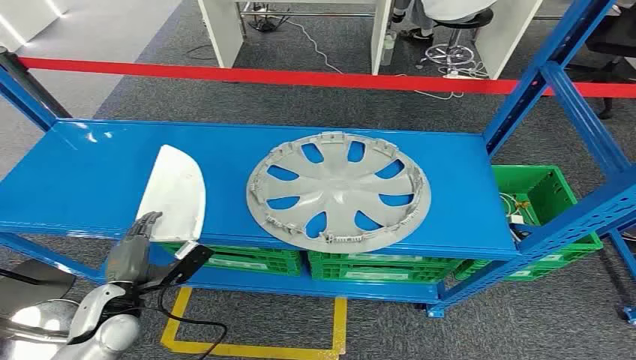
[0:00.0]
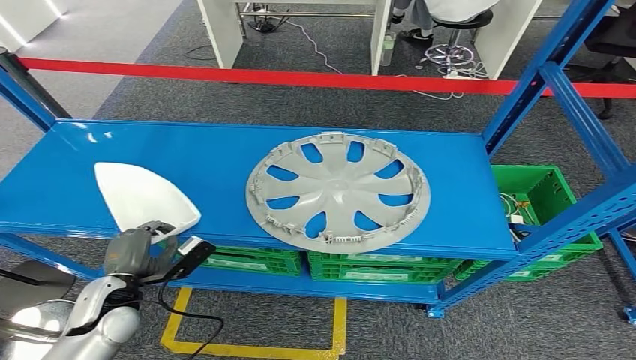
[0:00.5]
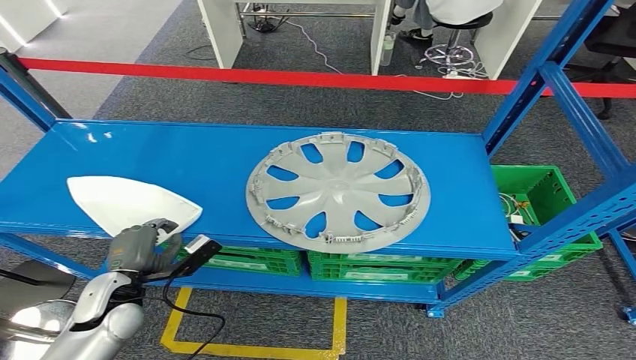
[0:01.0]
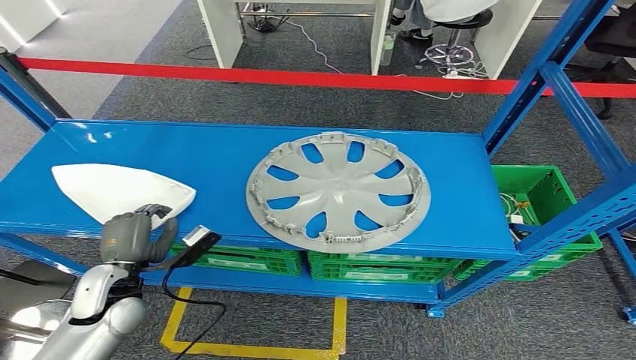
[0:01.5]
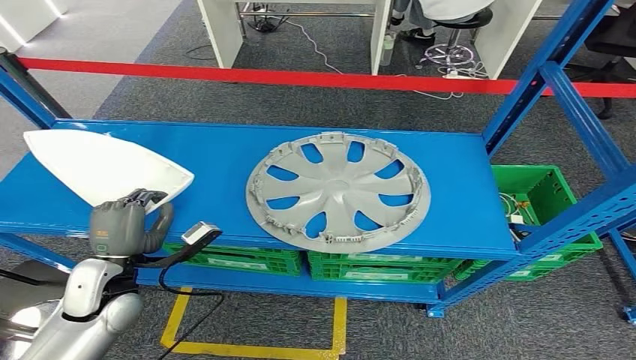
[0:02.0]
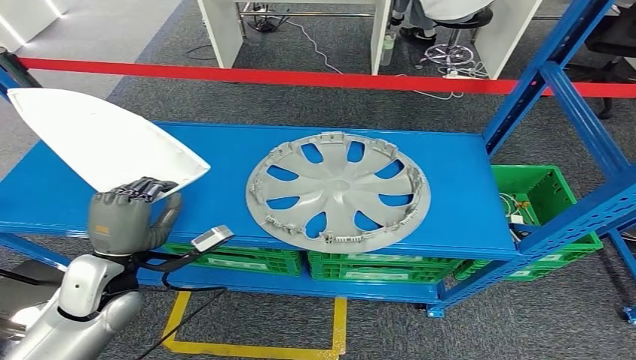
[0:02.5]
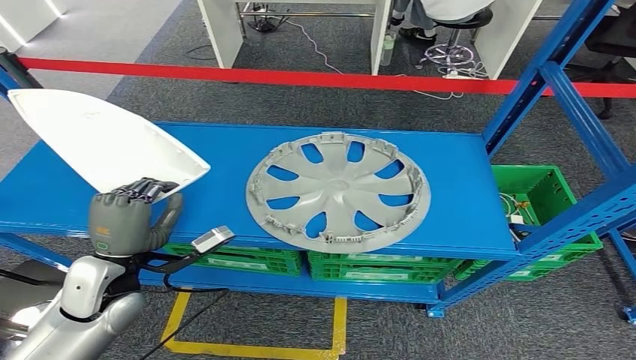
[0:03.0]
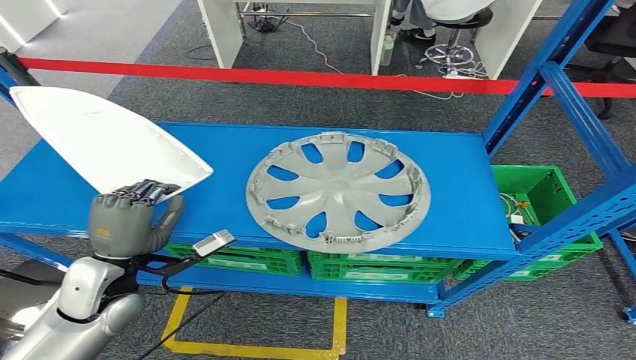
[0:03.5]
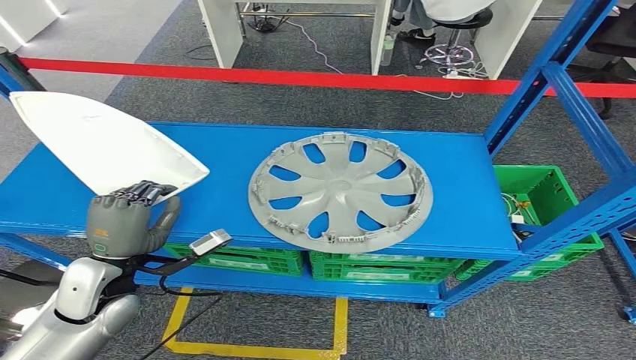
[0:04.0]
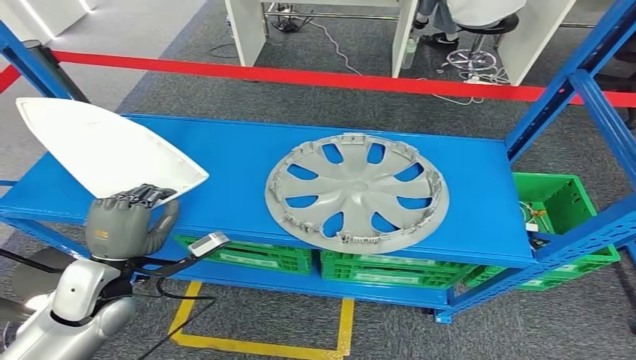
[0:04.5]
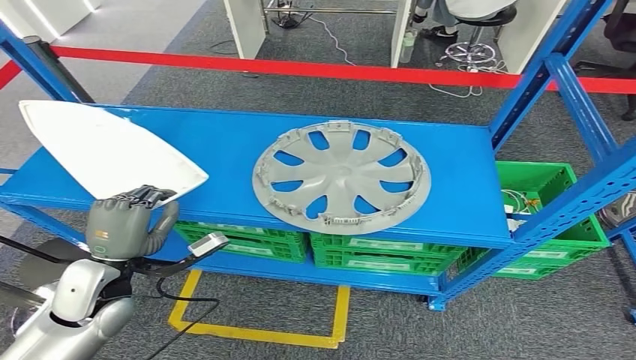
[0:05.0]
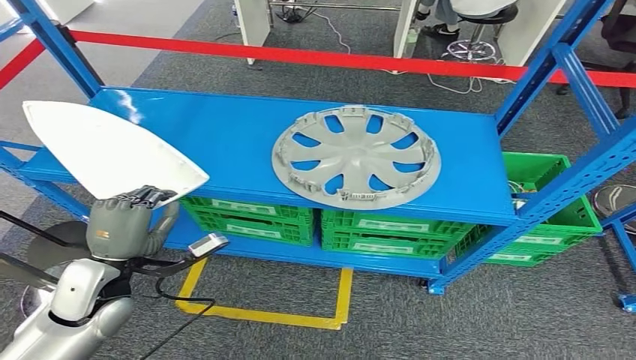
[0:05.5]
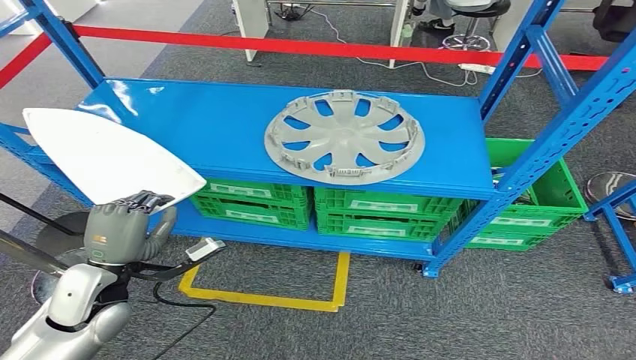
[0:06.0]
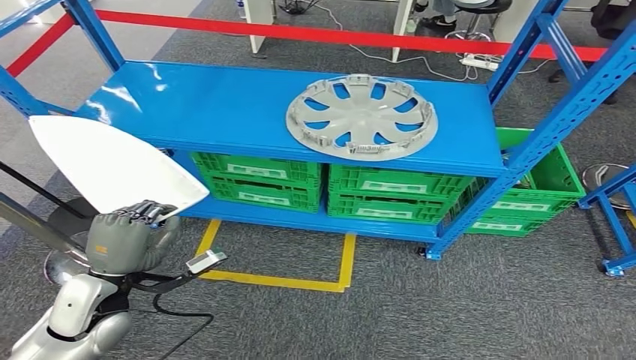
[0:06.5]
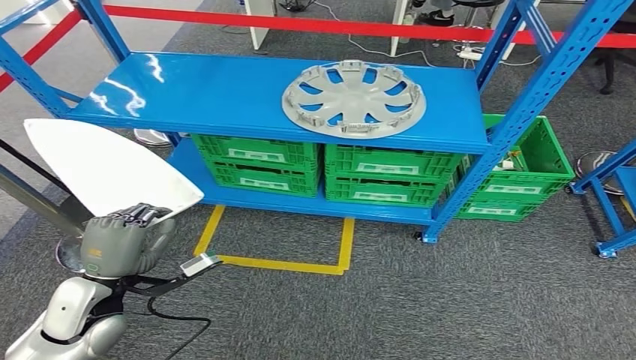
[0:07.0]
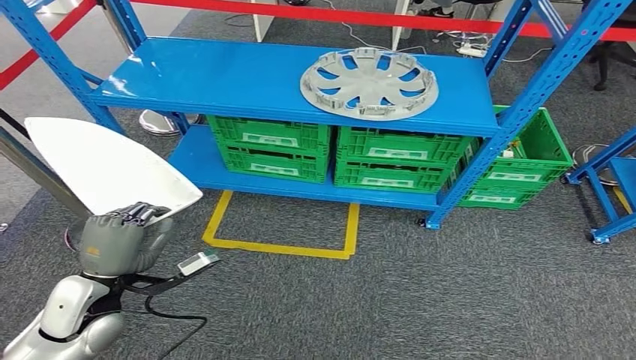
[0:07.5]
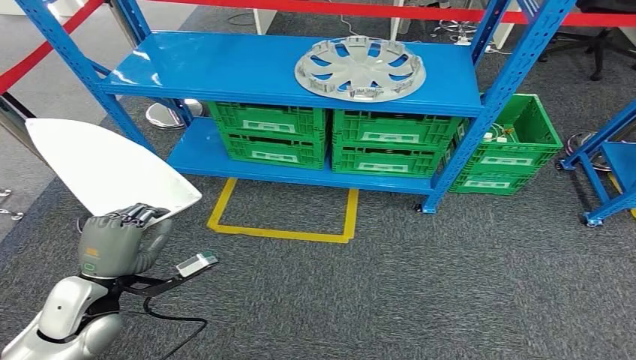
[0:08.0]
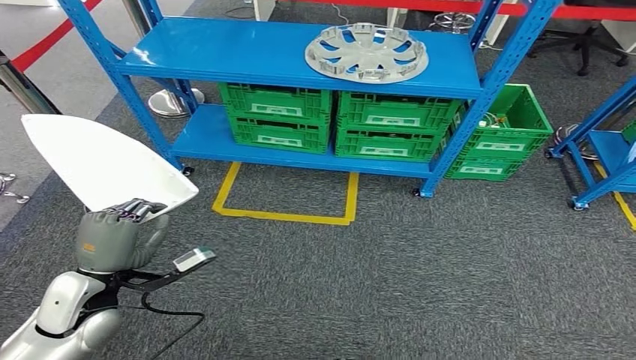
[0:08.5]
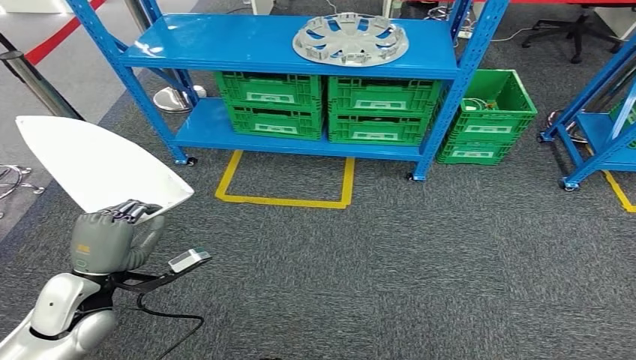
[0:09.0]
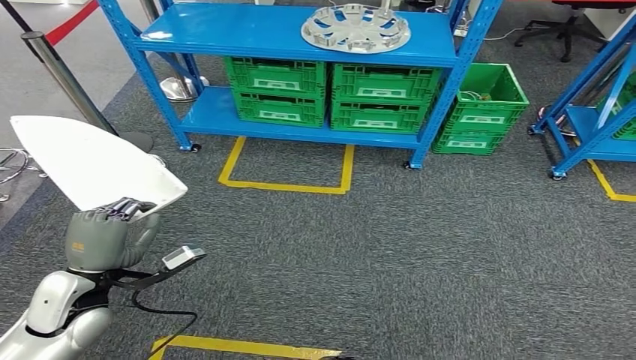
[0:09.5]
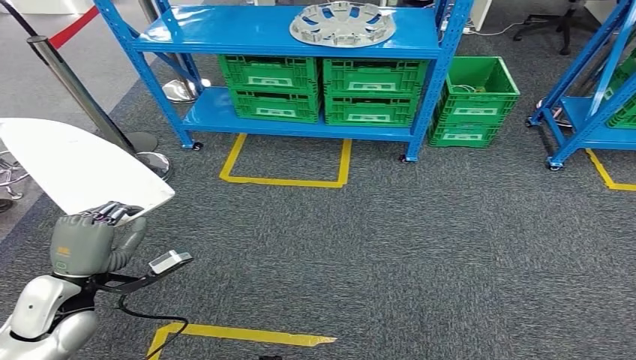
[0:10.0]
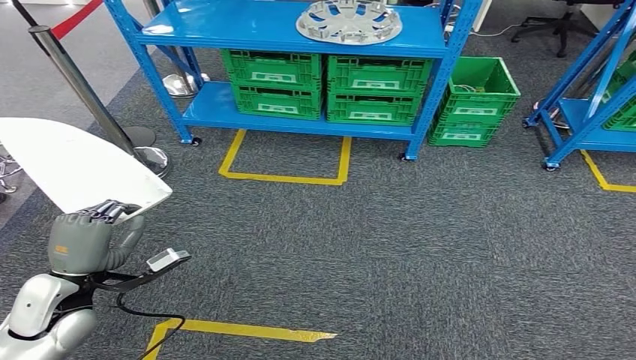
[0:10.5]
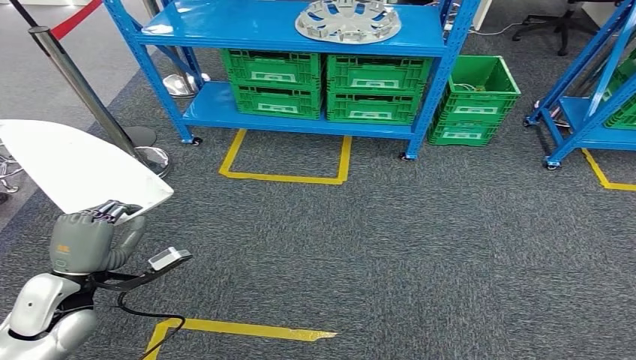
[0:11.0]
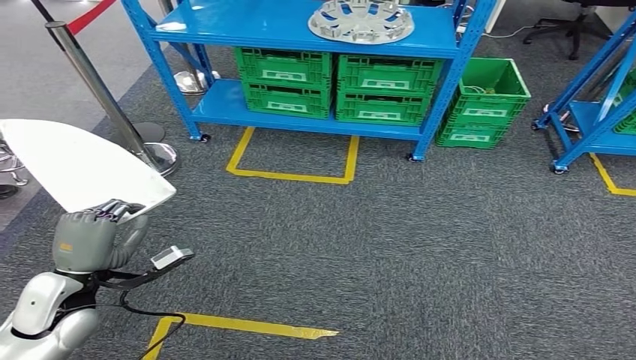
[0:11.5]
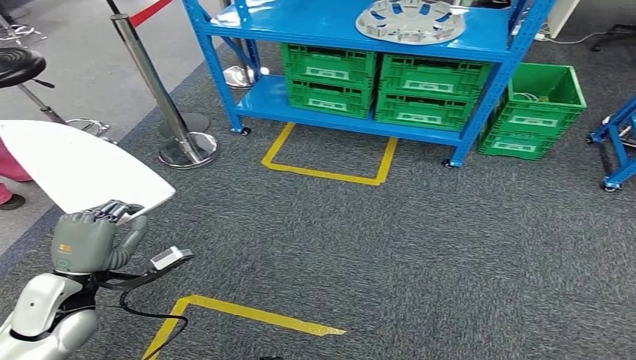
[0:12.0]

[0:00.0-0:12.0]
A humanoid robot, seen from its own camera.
Step, 0:00.0 to 0:02.5: Pick up the small component from the shelf.
0:02.0 to 0:04.0: The hands make only small movements.

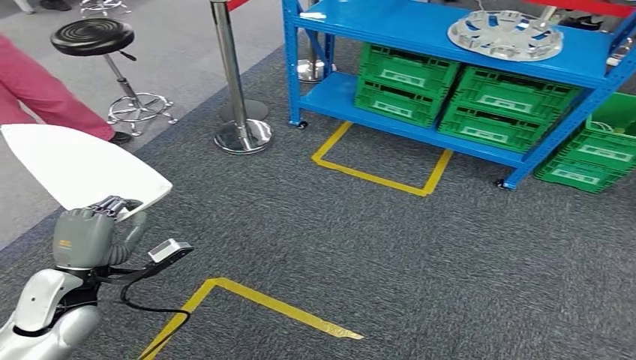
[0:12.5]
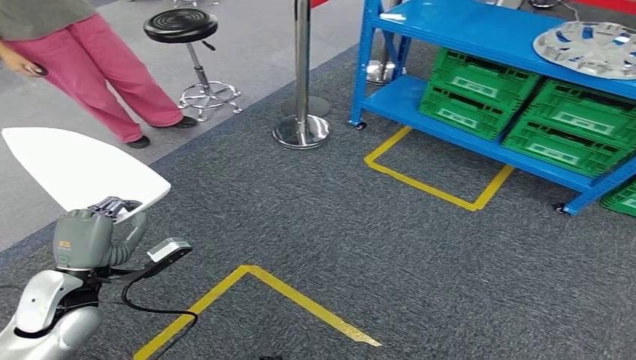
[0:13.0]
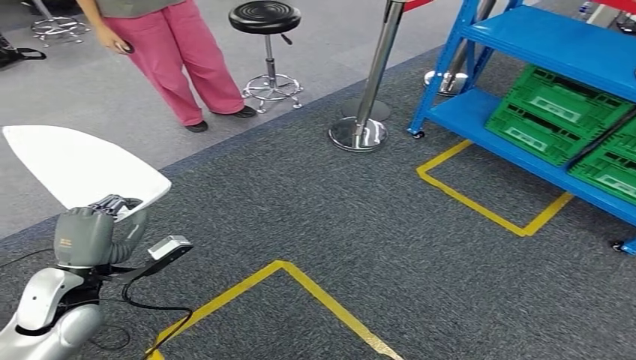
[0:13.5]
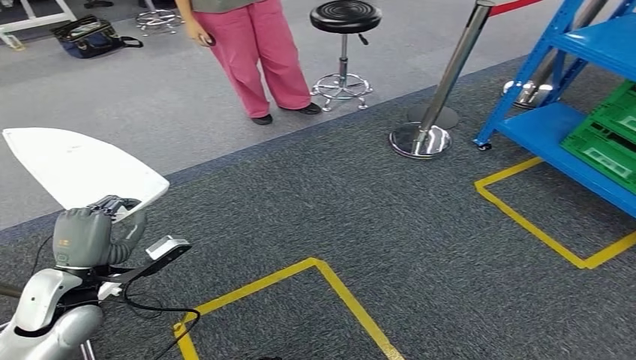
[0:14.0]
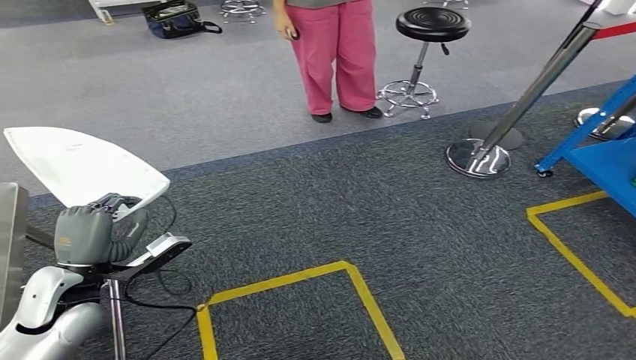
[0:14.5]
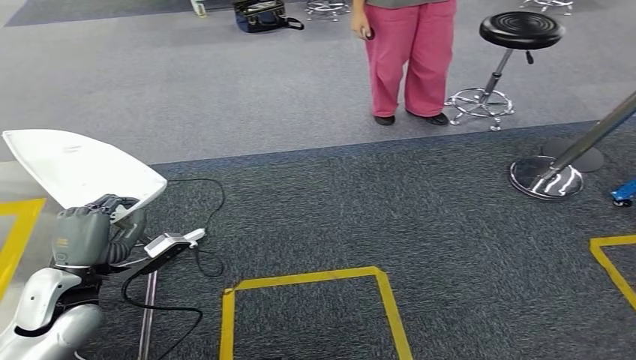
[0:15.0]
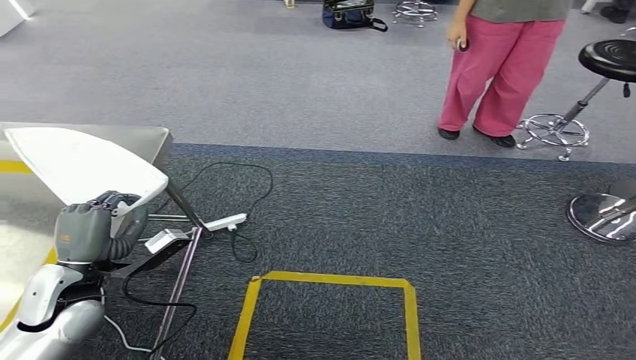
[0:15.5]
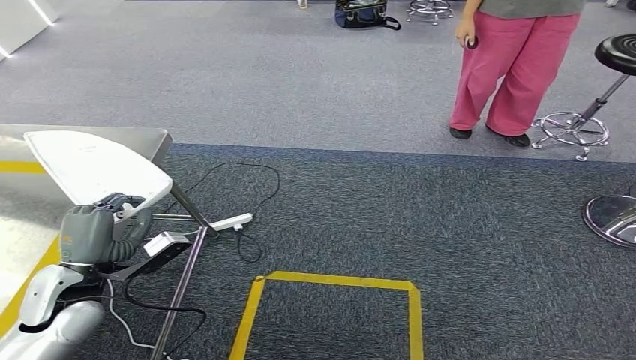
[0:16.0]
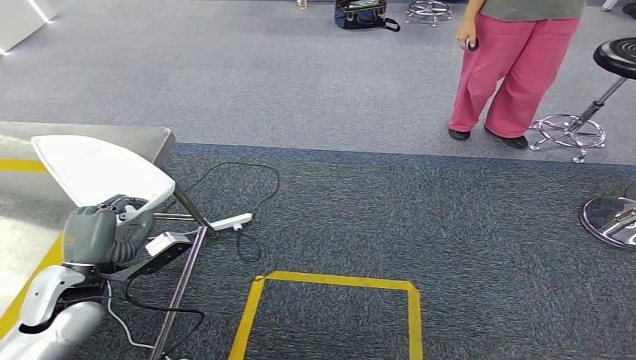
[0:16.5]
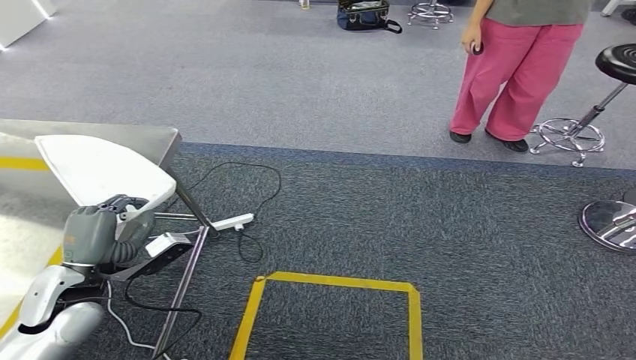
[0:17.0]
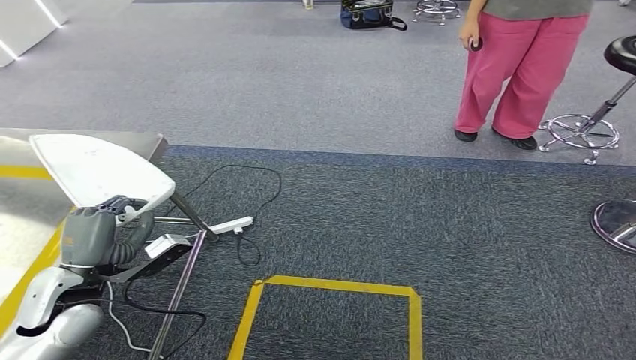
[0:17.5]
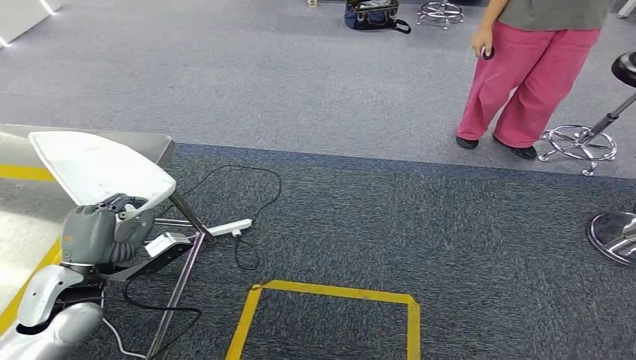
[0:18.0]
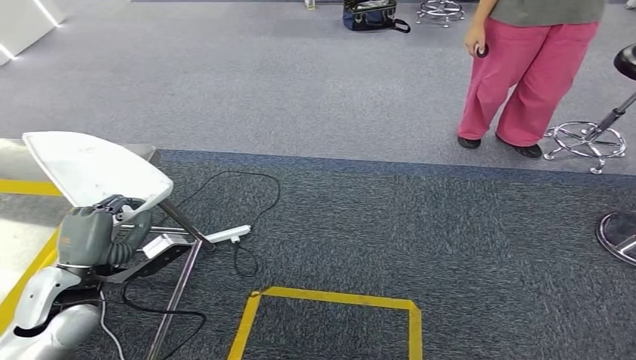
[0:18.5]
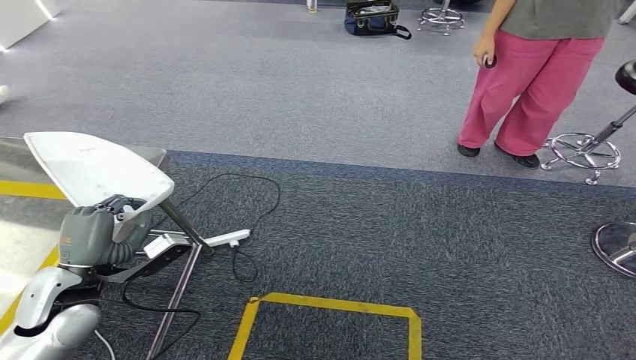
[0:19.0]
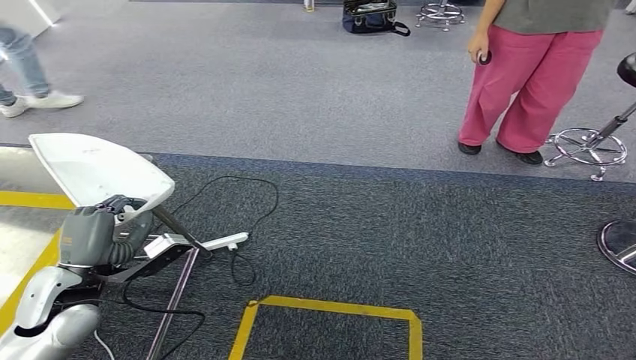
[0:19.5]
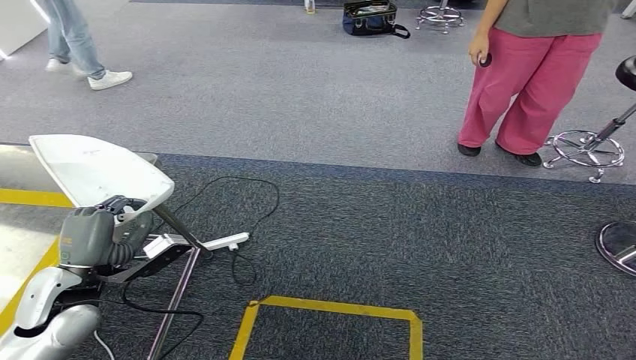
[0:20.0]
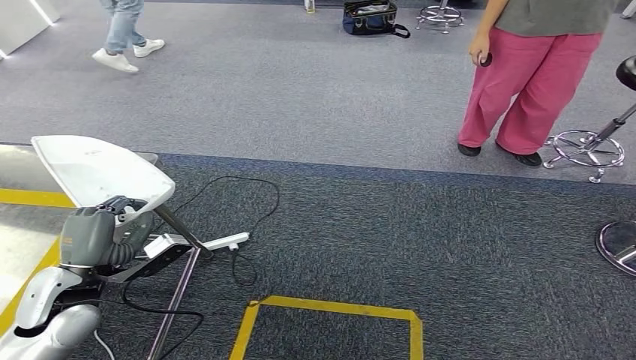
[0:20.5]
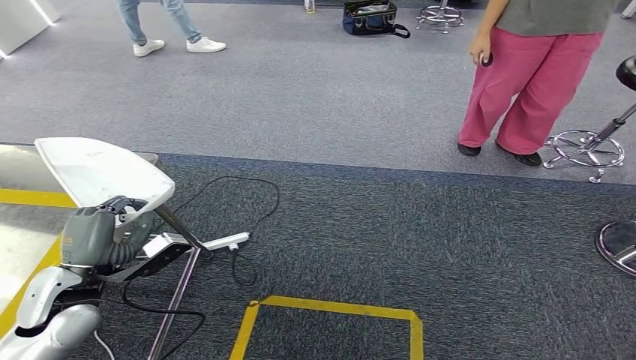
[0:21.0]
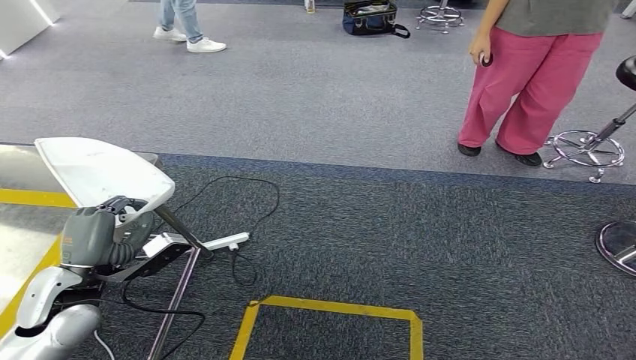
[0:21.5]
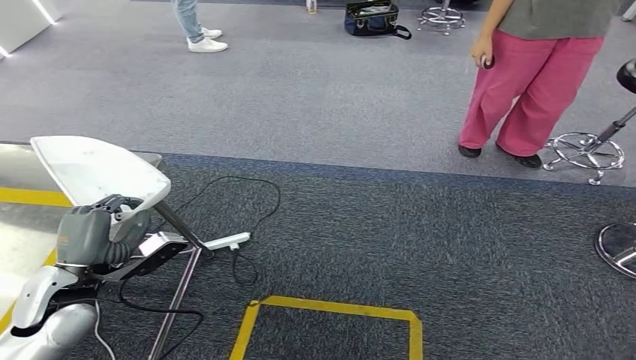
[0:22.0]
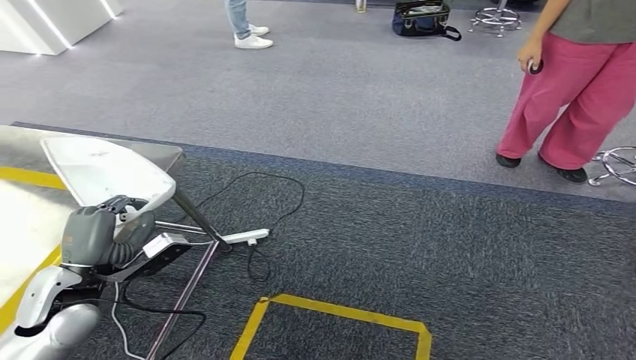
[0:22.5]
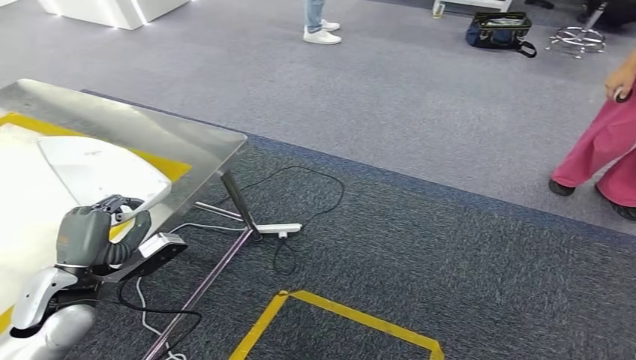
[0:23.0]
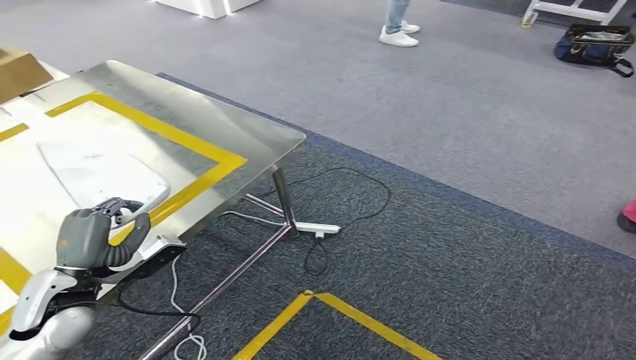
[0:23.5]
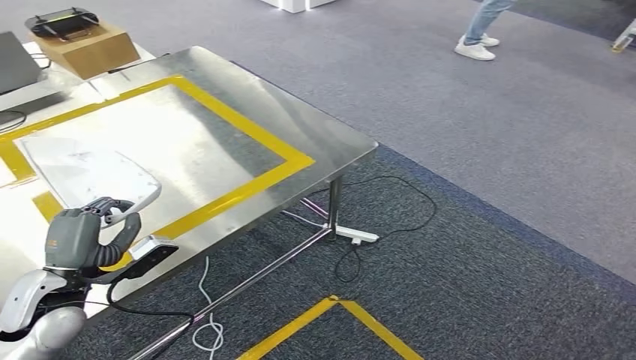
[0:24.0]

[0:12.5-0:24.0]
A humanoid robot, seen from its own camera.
0:16.5 to 0:22.0: Both hands stay about where they are.
